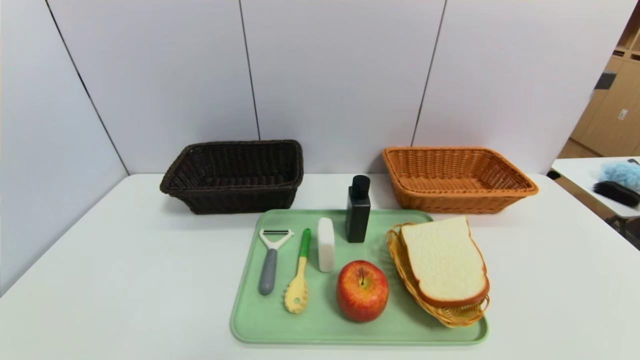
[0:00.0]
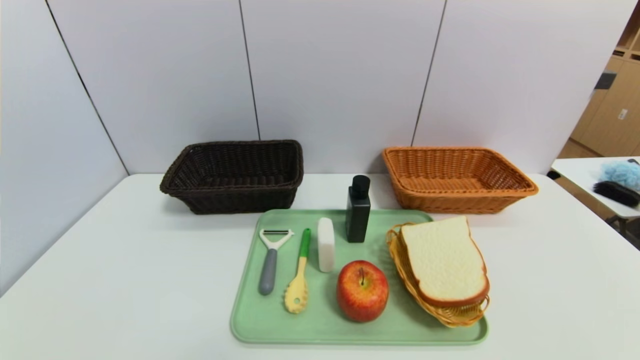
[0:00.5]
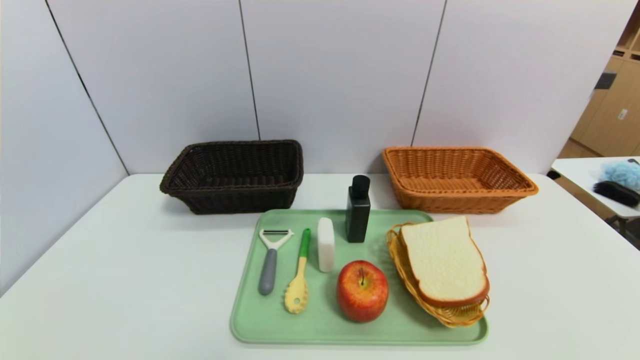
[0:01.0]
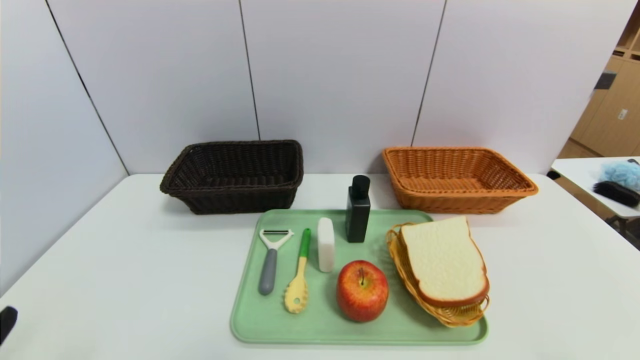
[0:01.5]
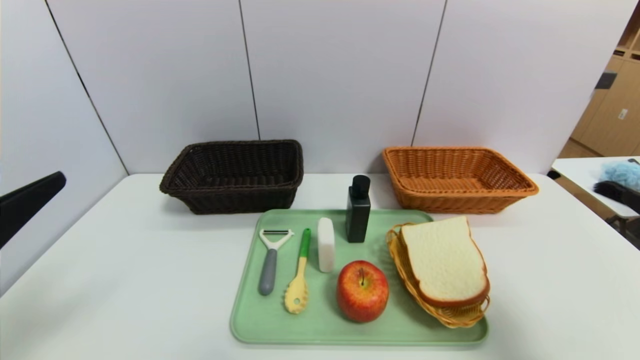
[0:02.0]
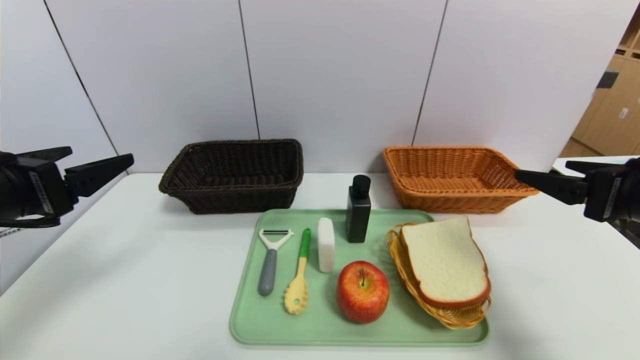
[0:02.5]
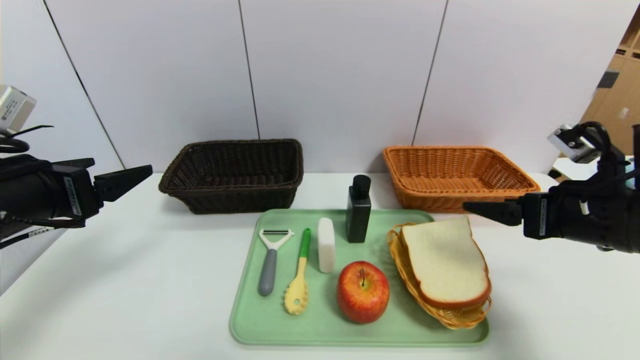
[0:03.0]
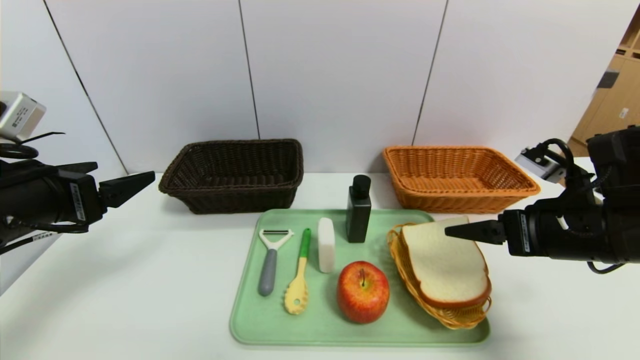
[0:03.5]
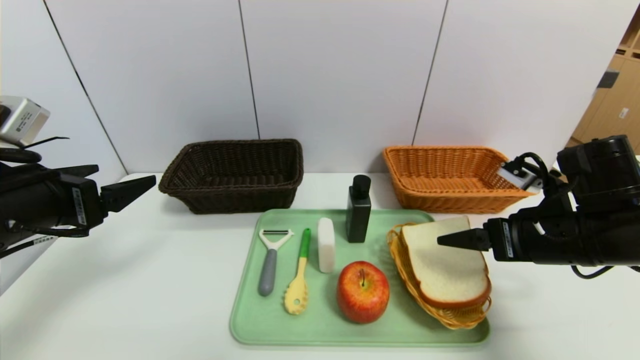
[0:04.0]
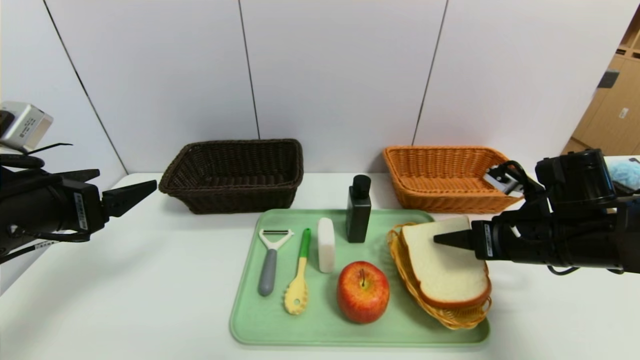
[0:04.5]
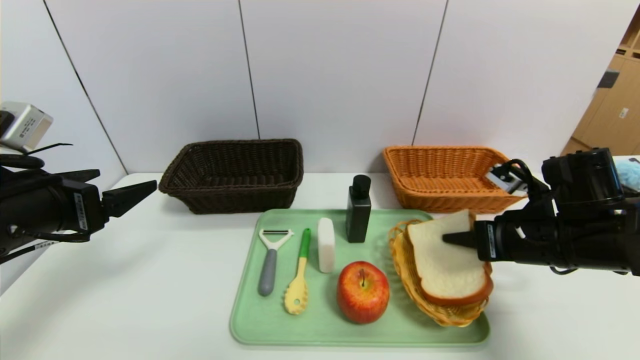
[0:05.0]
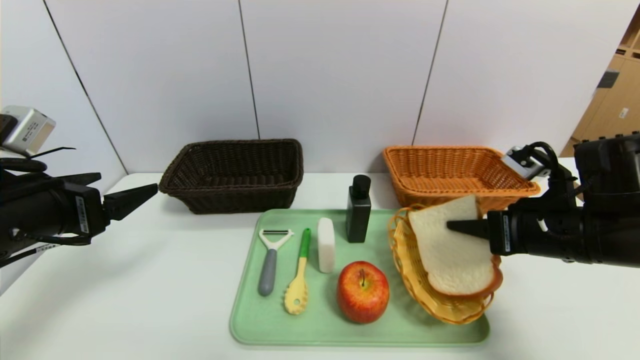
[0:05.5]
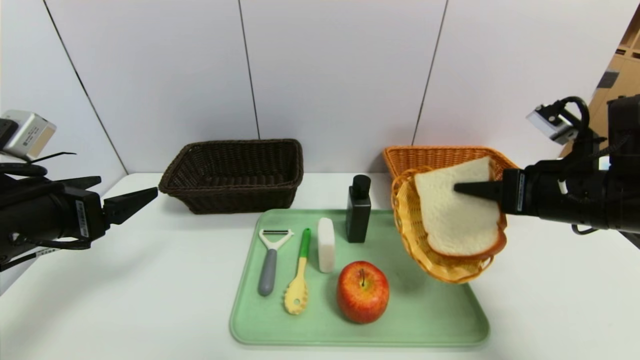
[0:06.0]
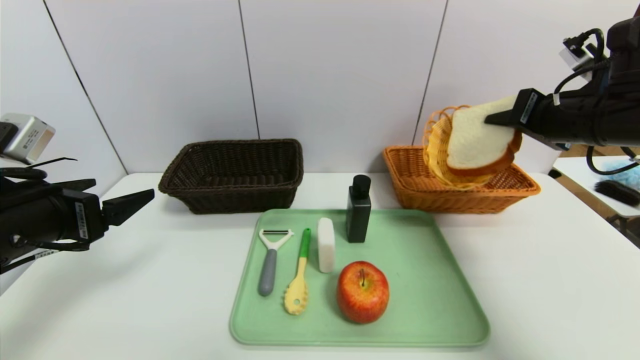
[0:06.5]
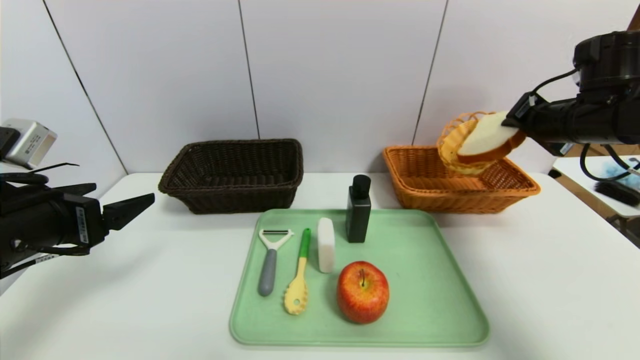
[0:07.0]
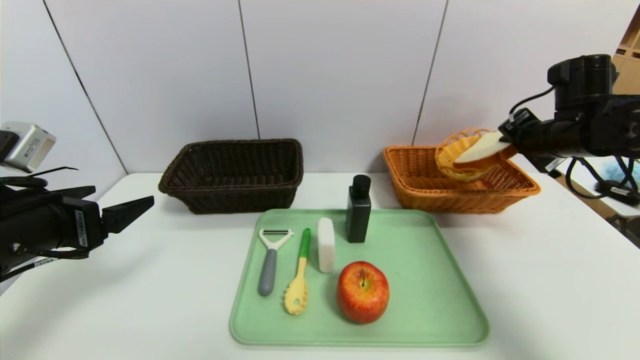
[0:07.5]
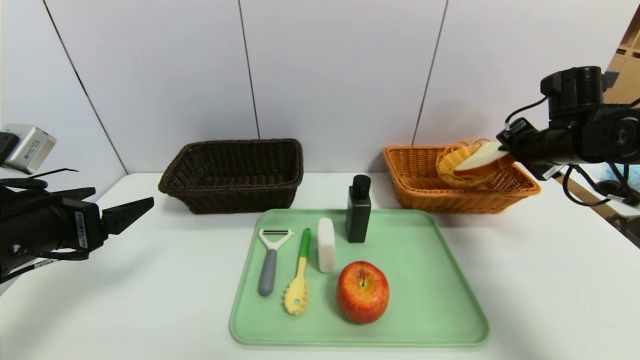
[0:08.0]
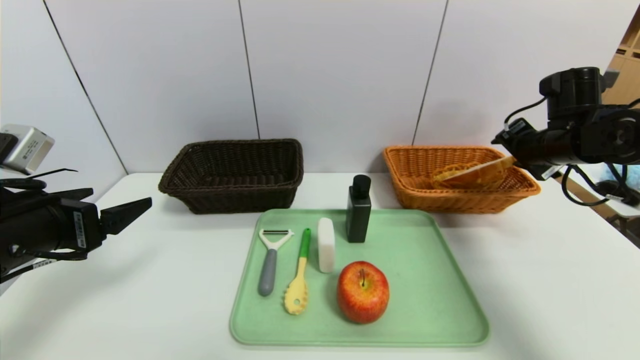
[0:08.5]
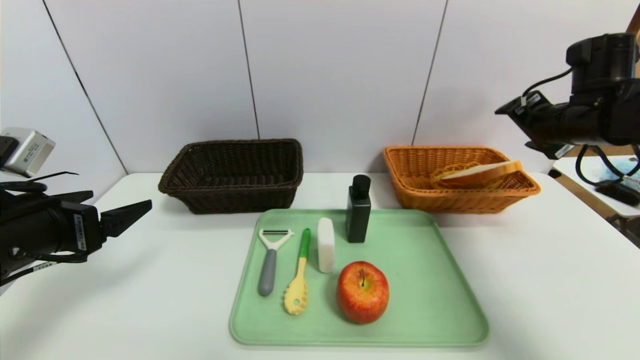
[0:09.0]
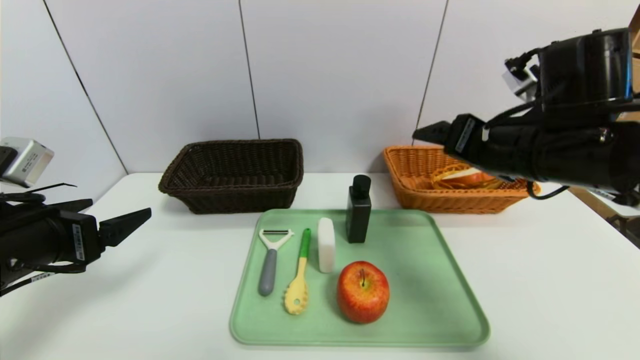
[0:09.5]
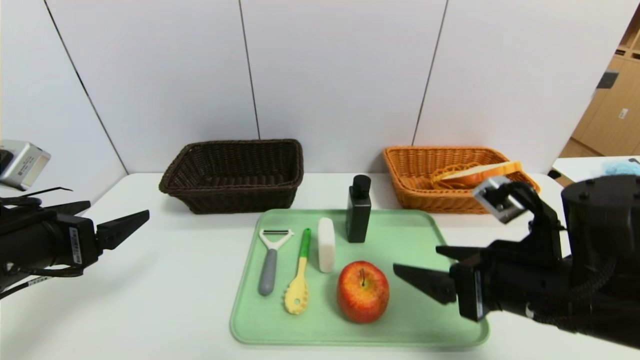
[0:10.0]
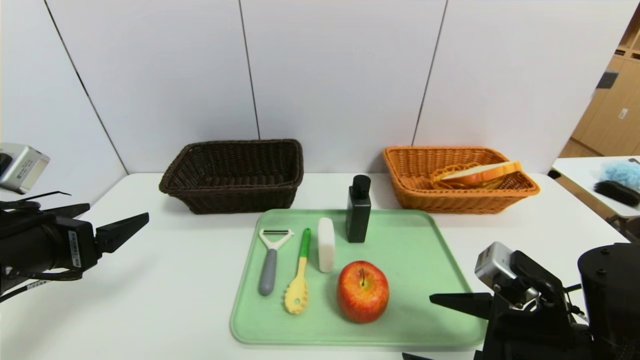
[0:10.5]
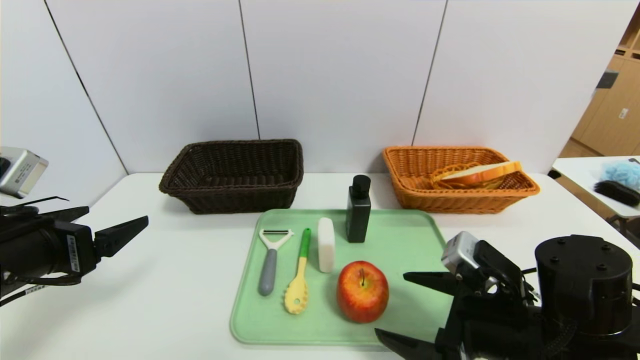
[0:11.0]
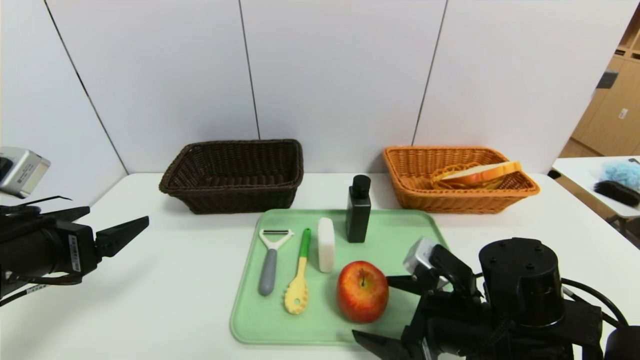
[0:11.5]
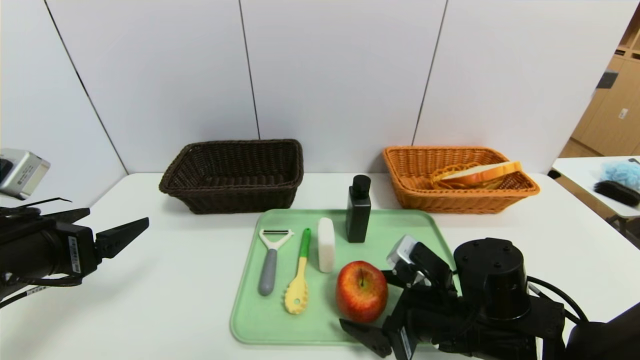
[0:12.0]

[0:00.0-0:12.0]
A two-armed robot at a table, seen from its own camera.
Task of the whole recording: place the food in the right basket with the right gripper, and place the non food items in the left basket with the left gripper.
Step, 0:00.0 to 0:09.0: Grasp the small basket containing bread and put it in the right basket.
0:00.0 to 0:02.0: The grippers both shift upward and forward by approximately 20 cm.
0:02.0 to 0:04.0: The left gripper moves forward, roughly 10 cm, while the right gripper moves forward and downward, about 15 cm.
0:04.0 to 0:06.0: The right gripper travels upward by about 5 cm, and closes up.
0:06.0 to 0:08.0: The right gripper goes about 15 cm forward and to the right.
0:08.0 to 0:10.0: The right gripper is displaced backward and to the left by about 25 cm, and opens its fingers.
0:10.0 to 0:12.0: The right gripper goes some 10 cm downward.

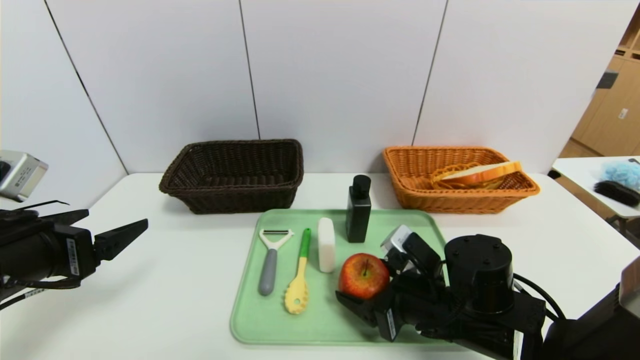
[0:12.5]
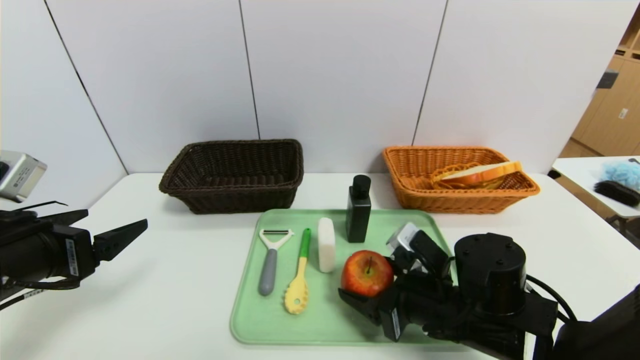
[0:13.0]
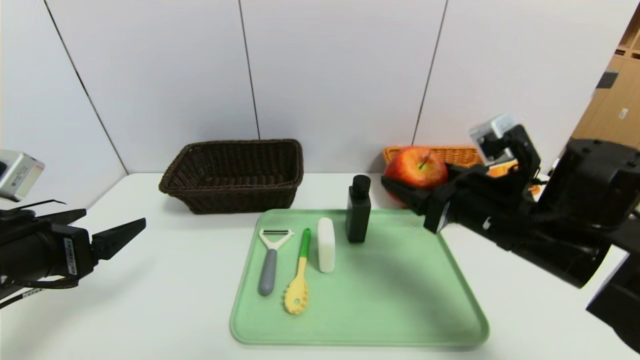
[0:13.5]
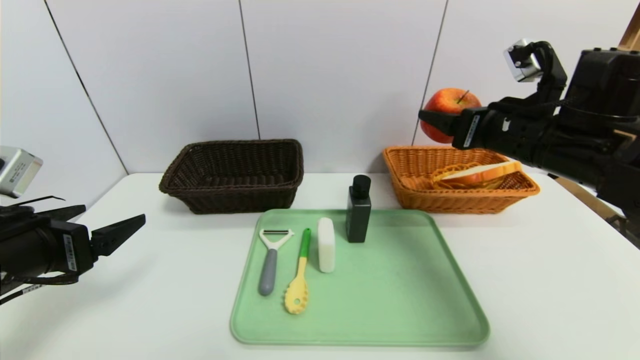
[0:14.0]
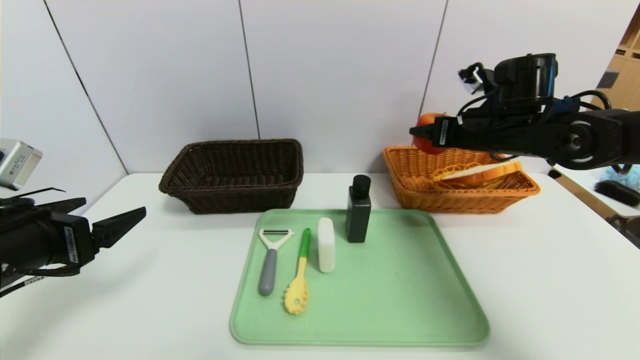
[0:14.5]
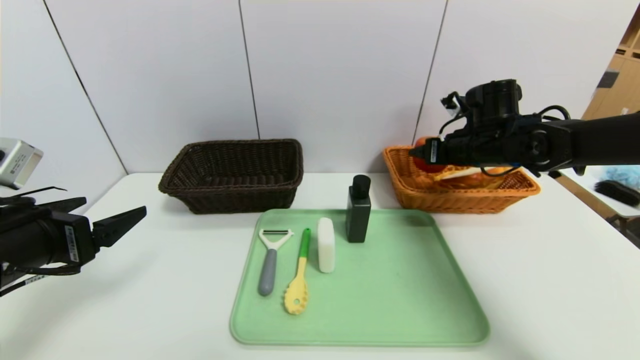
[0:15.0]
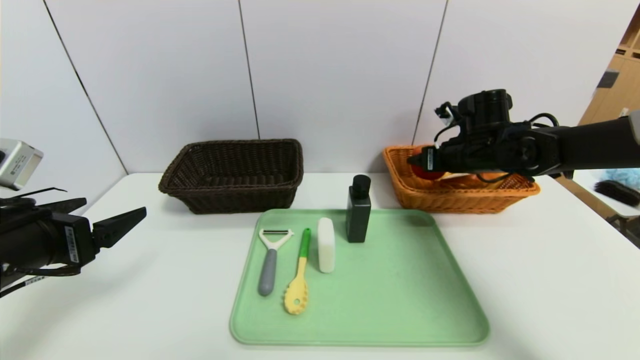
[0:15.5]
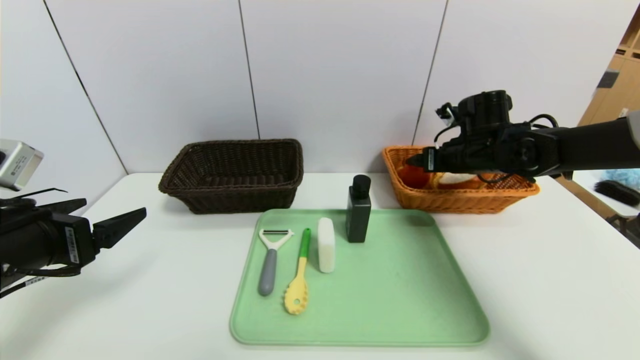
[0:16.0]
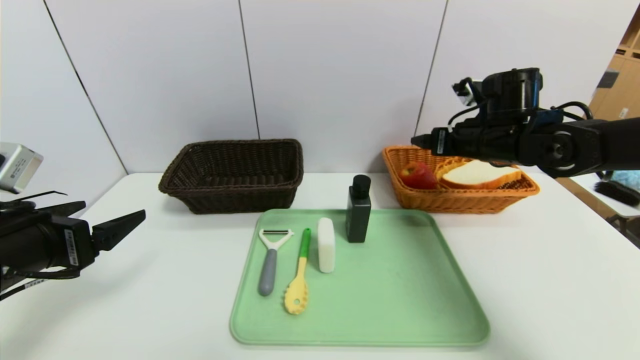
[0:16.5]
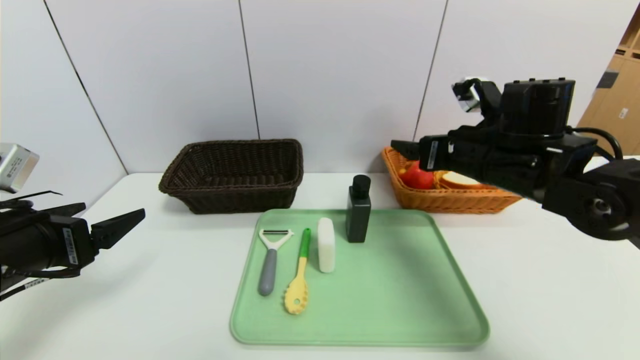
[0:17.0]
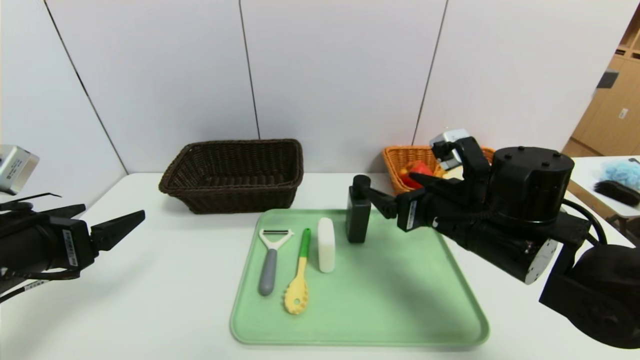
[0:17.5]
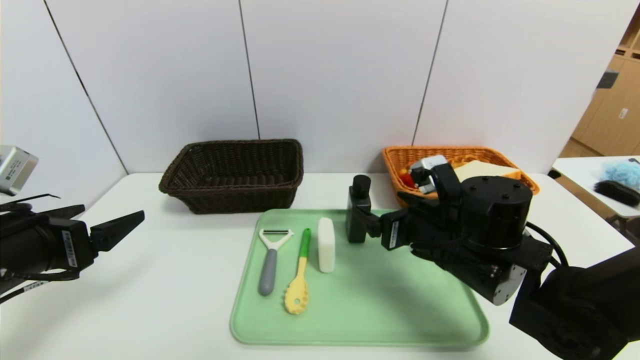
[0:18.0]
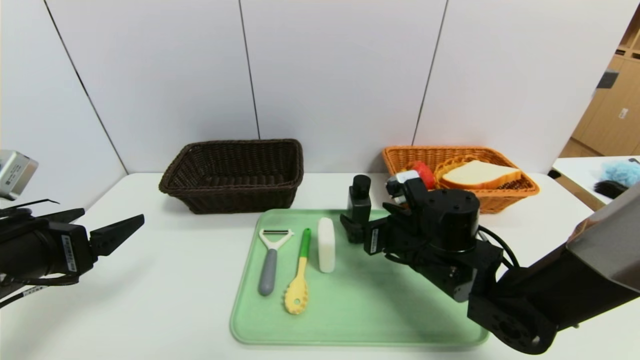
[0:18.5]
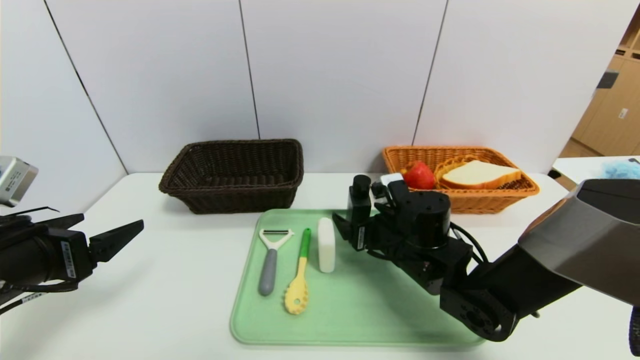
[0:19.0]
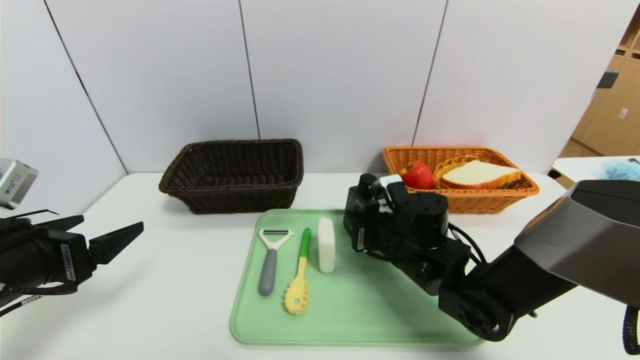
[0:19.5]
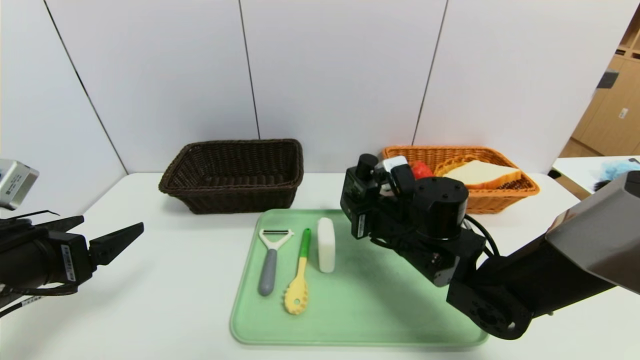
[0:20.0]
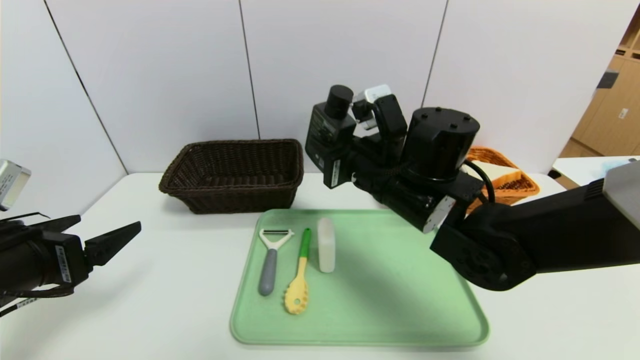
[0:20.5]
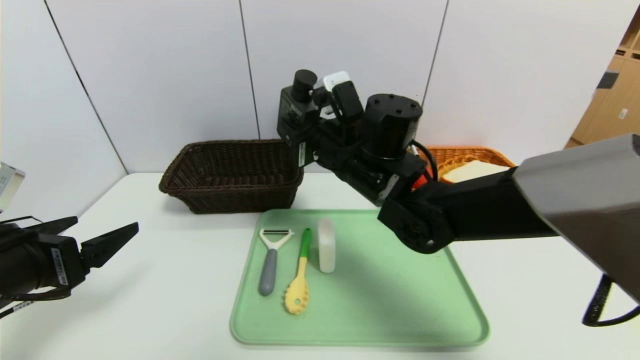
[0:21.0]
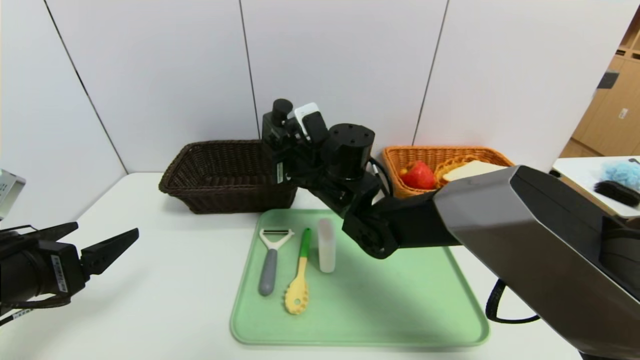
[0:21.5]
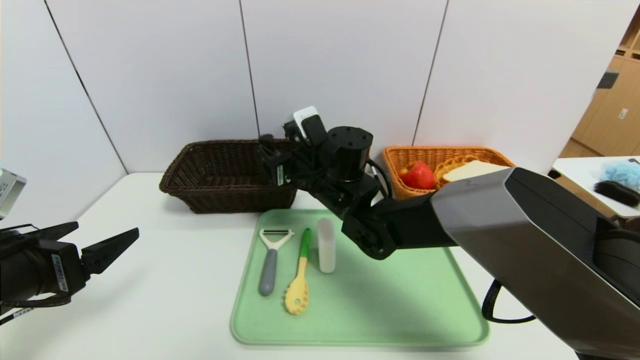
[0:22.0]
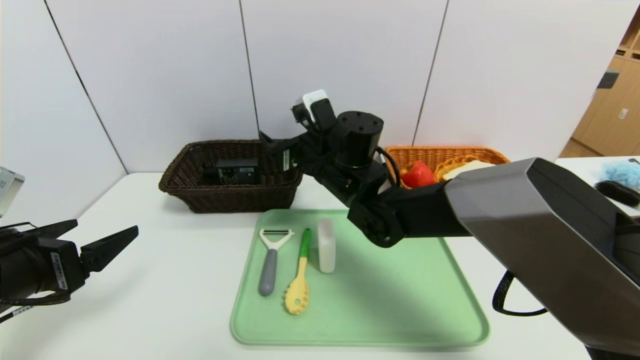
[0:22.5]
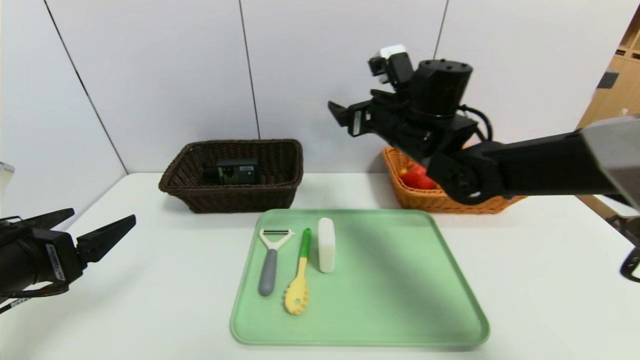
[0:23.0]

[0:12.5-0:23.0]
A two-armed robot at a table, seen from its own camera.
Task of the whole recording: place the food in the right basket with the right gripper, and place the non food items in the left basket with the left gripper.
Step, 0:12.5 to 0:16.5: Grasp the apple and put it in the right basket.
0:12.5 to 0:14.5: The right gripper travels forward, upward and to the right by roughly 25 cm.
0:16.5 to 0:19.0: The right gripper goes approximately 20 cm downward, to the left and backward.
0:19.0 to 0:21.0: The right gripper heads upward and to the left, covering about 15 cm, and closes its fingers.
0:21.0 to 0:23.0: The right gripper goes roughly 10 cm to the right, and opens.
